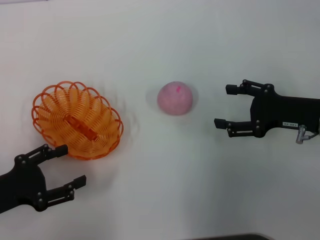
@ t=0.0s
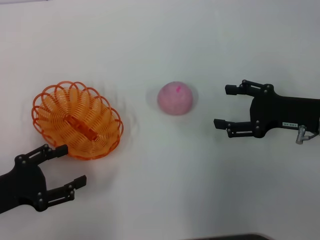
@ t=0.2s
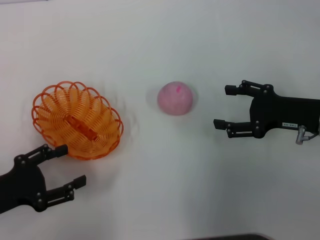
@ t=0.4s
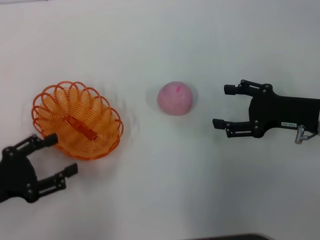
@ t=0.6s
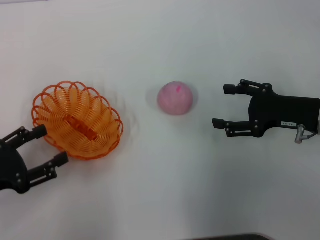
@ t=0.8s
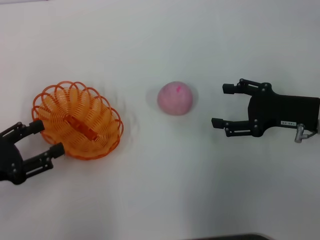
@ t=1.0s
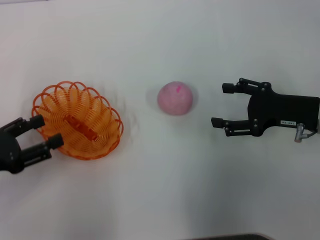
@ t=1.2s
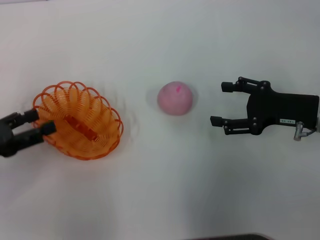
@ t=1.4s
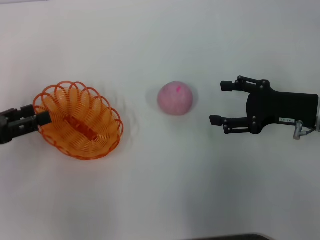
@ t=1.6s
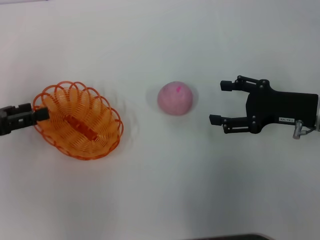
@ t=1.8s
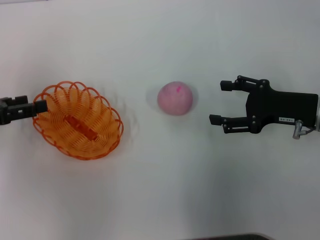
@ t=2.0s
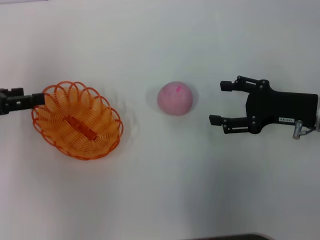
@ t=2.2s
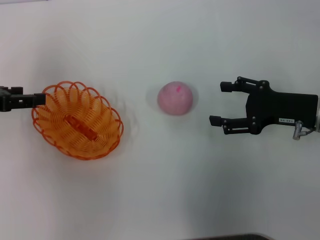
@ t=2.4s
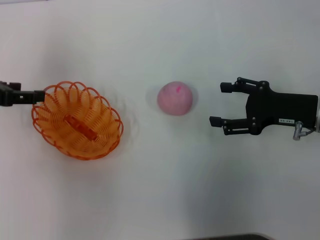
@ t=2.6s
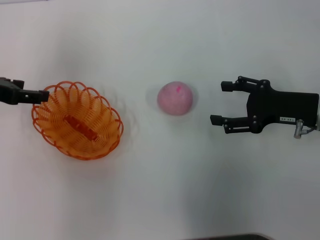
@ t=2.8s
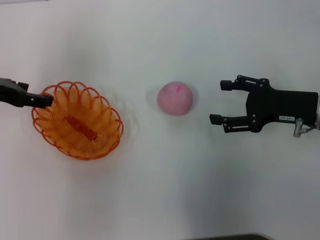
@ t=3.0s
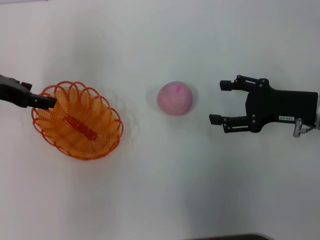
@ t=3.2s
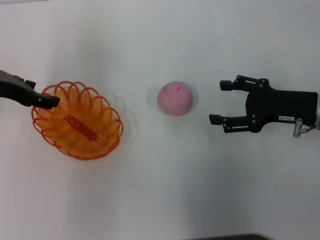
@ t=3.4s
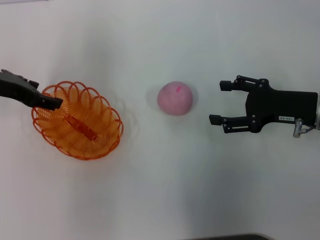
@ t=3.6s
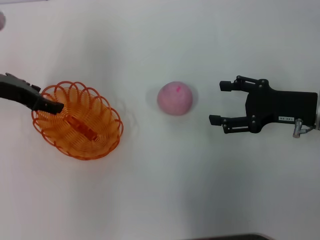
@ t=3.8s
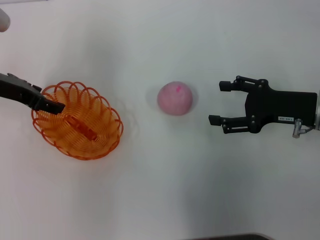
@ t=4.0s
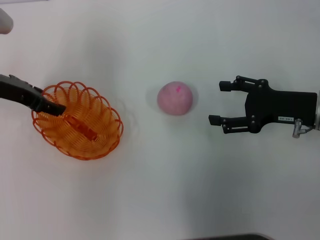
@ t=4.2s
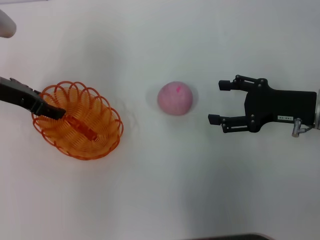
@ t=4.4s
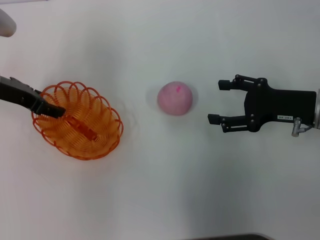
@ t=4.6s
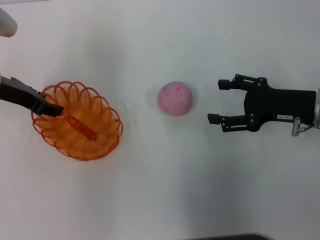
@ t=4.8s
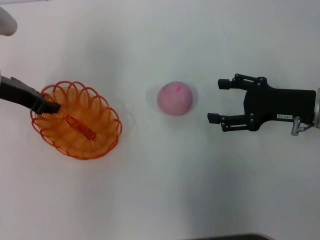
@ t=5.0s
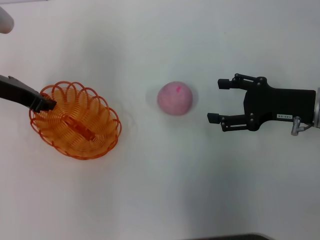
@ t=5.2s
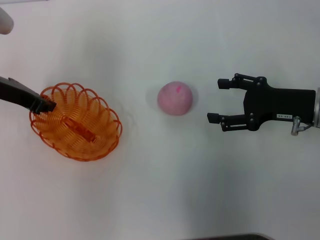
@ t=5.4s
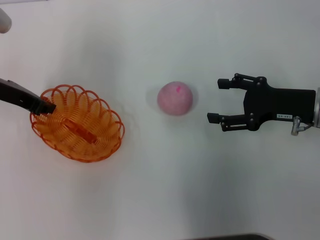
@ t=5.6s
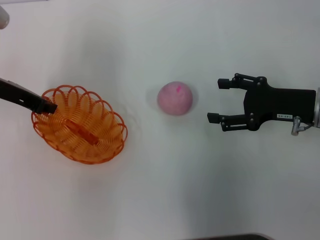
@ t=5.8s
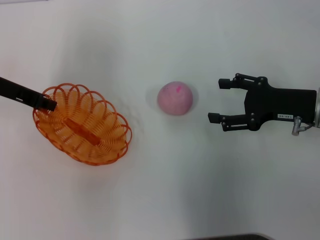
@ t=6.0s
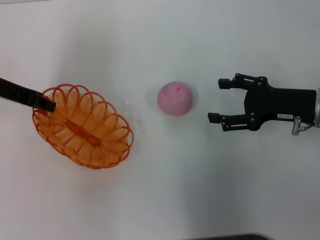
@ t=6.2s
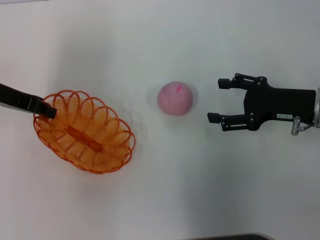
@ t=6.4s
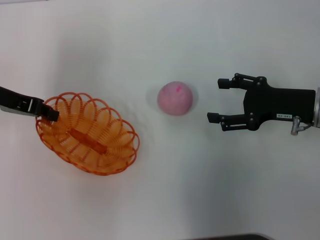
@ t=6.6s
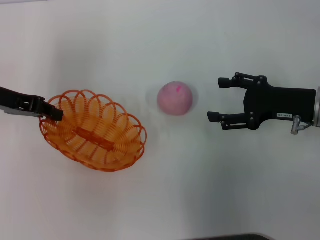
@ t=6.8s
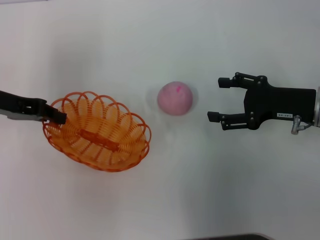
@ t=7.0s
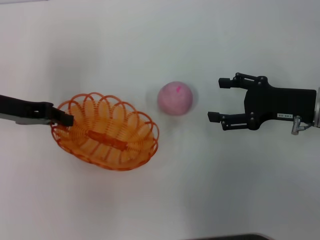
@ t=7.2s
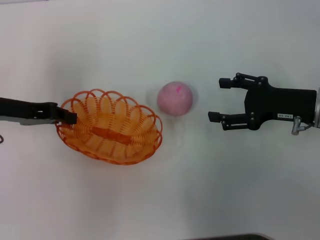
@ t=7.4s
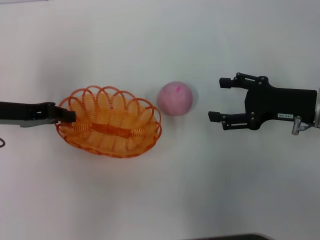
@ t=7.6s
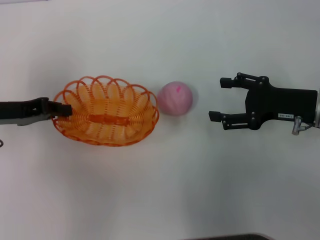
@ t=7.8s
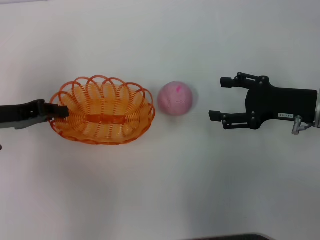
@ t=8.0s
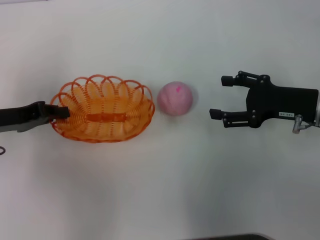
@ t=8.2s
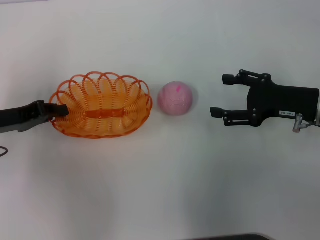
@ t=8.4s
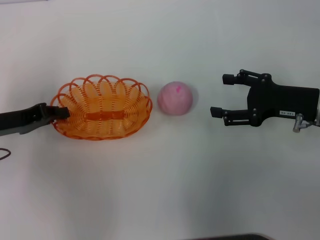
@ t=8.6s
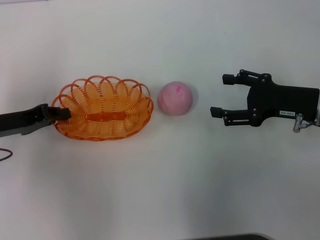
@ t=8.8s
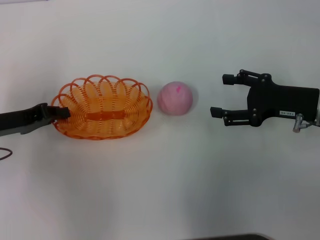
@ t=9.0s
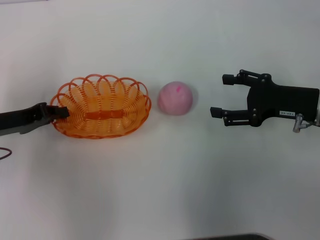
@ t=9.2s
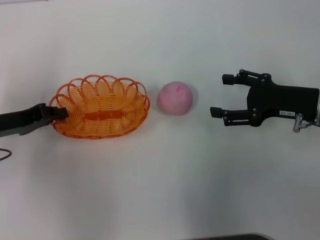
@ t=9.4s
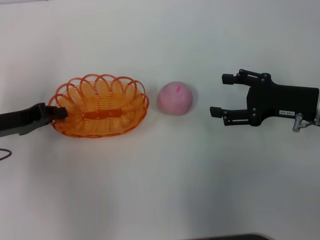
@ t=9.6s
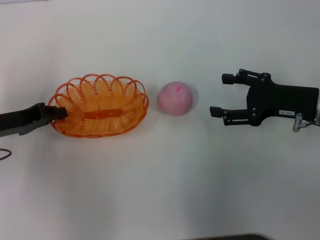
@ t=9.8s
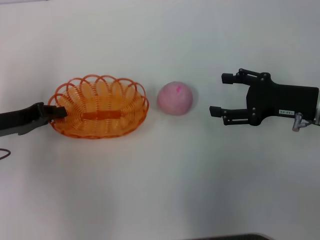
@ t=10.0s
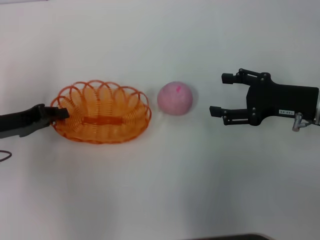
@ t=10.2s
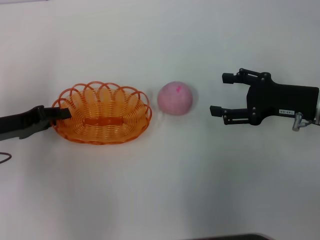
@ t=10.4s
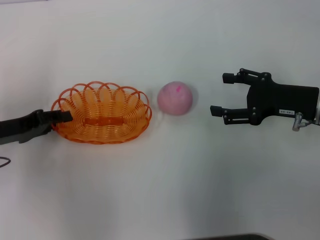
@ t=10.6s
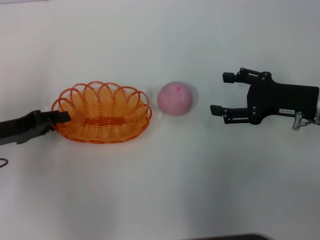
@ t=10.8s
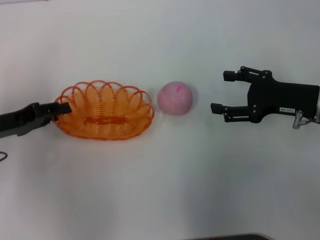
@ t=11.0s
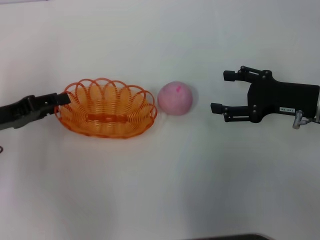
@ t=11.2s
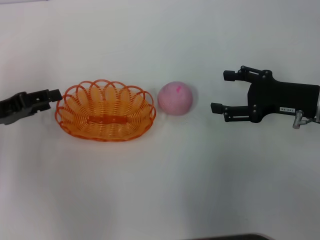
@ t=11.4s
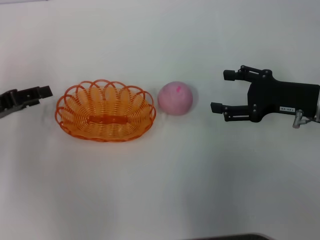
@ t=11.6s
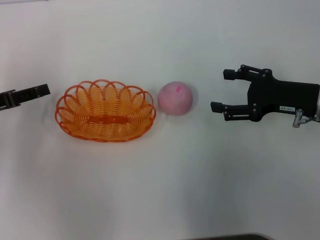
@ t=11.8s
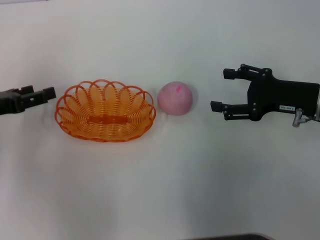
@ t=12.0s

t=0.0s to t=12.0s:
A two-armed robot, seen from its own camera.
Step, t=0.0s to t=6.6s: Pick up the basket with the left gripper.
Step, t=7.0s to t=11.8s: Place the basket in the center of view with the left gripper.
t=0.0s to t=1.6s: The left gripper travels forward by approximately 5 cm.
t=1.6s to t=3.0s: The left gripper goes about 10 cm forward and upward.
t=3.0s to t=4.4s: The left gripper moves roughly 5 cm.
t=4.4s to t=6.0s: The left gripper closes up.
t=6.0s to t=7.6s: The left gripper shifts about 5 cm backward.
t=7.6s to t=9.0s: The grippers move only a little.
t=9.0s to t=10.4s: Both grippers stay about where they are.
t=10.4s to t=12.0s: The left gripper opens its fingers.

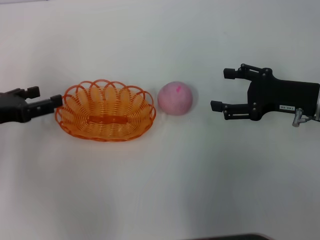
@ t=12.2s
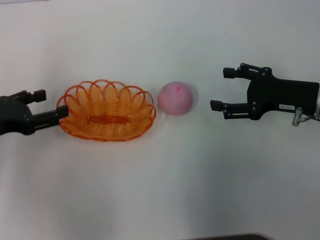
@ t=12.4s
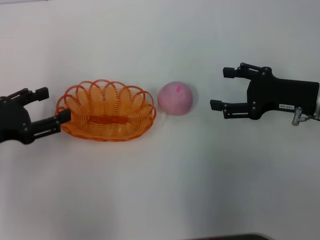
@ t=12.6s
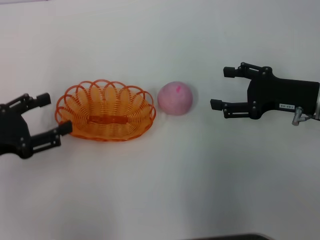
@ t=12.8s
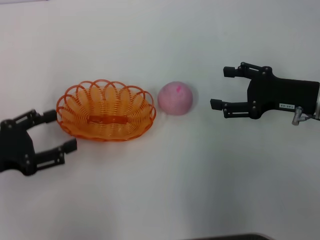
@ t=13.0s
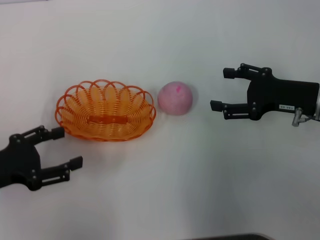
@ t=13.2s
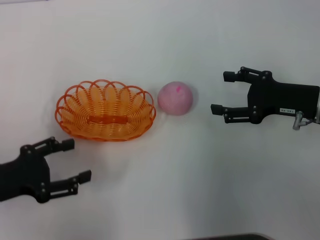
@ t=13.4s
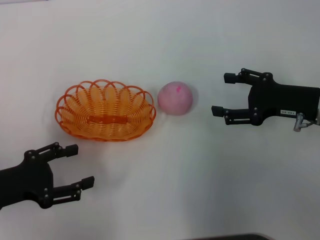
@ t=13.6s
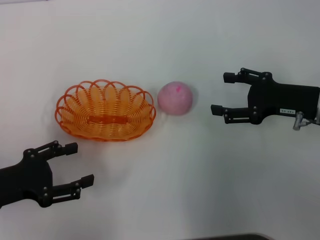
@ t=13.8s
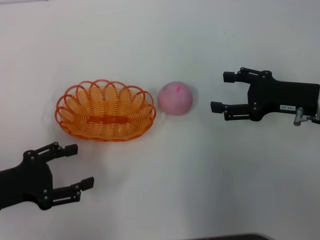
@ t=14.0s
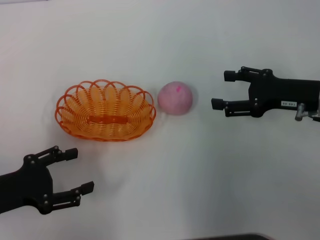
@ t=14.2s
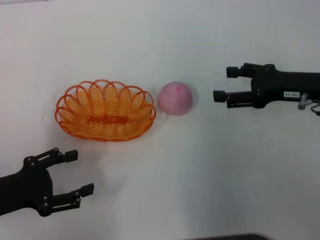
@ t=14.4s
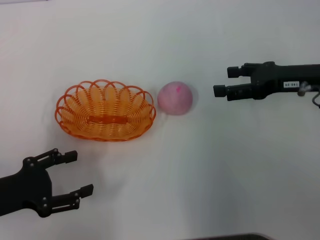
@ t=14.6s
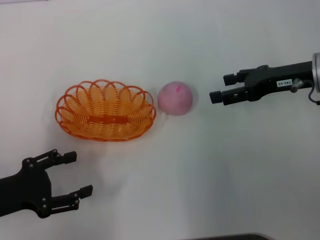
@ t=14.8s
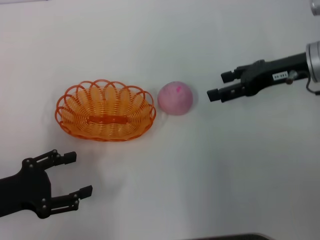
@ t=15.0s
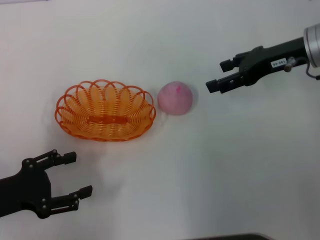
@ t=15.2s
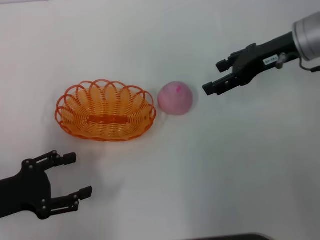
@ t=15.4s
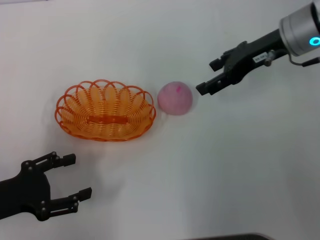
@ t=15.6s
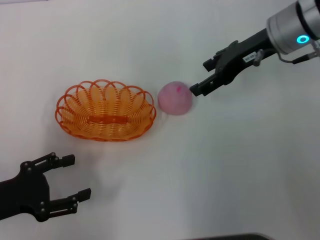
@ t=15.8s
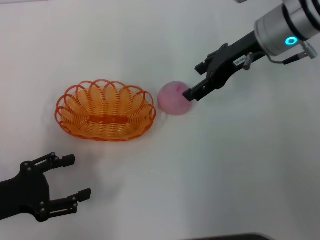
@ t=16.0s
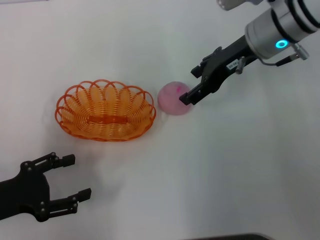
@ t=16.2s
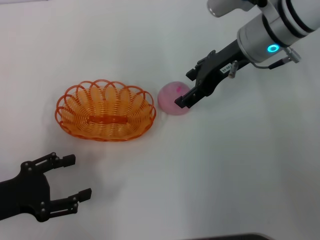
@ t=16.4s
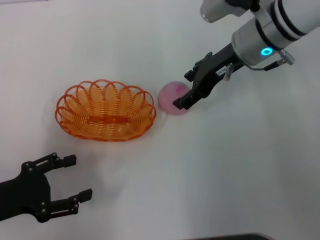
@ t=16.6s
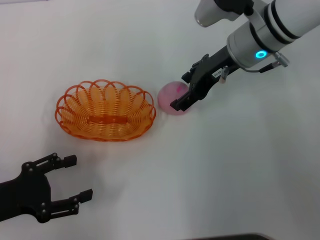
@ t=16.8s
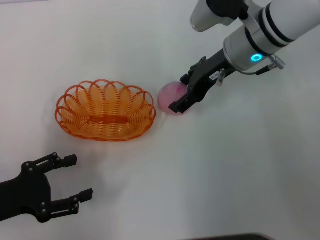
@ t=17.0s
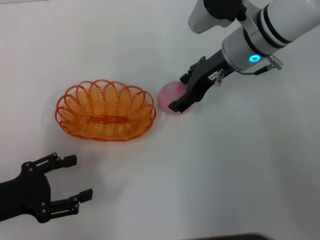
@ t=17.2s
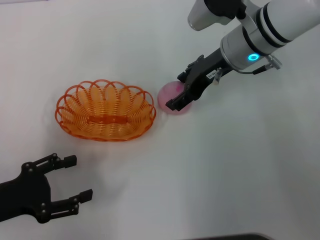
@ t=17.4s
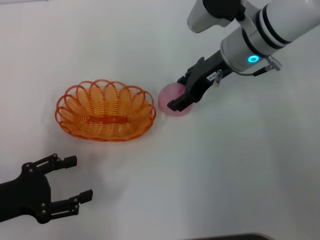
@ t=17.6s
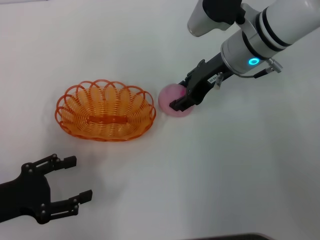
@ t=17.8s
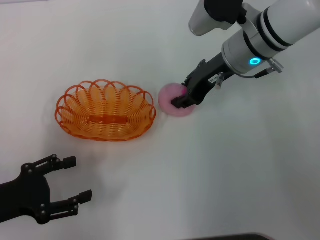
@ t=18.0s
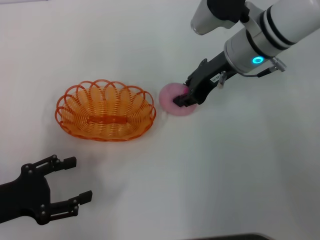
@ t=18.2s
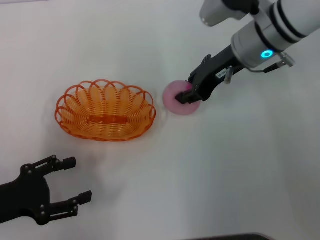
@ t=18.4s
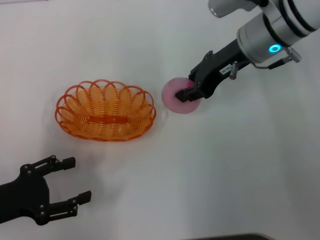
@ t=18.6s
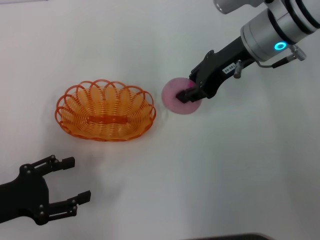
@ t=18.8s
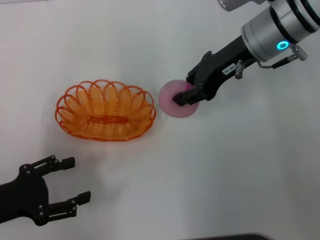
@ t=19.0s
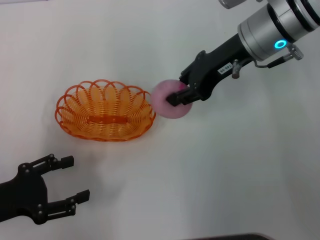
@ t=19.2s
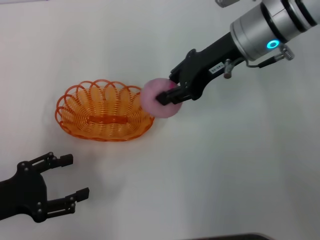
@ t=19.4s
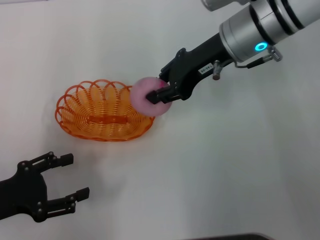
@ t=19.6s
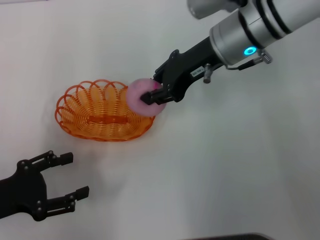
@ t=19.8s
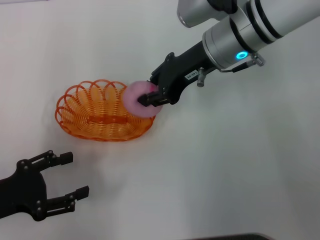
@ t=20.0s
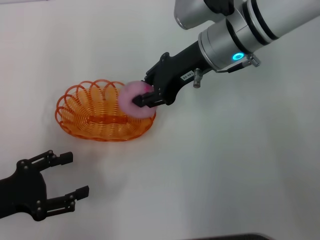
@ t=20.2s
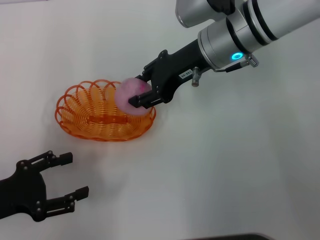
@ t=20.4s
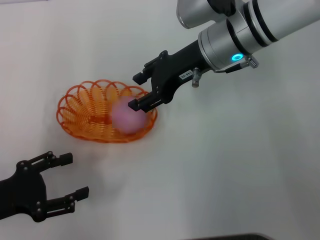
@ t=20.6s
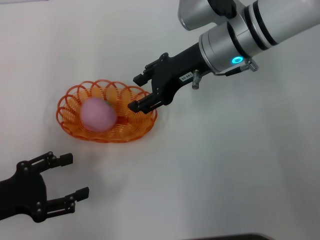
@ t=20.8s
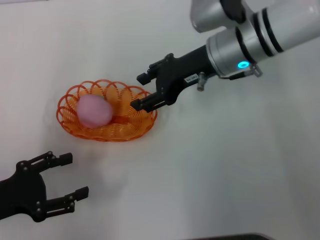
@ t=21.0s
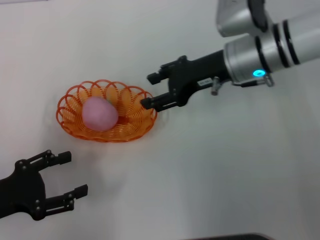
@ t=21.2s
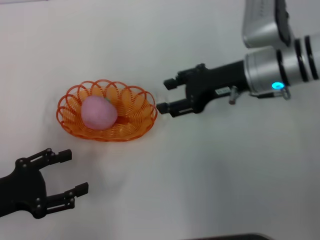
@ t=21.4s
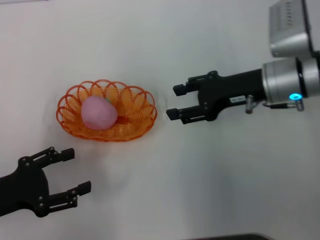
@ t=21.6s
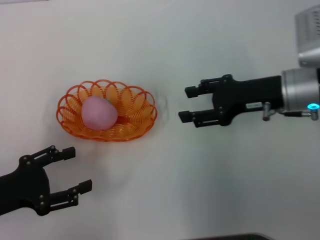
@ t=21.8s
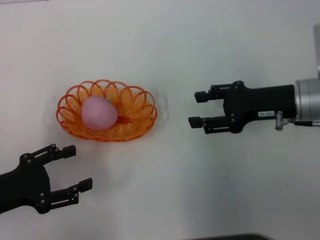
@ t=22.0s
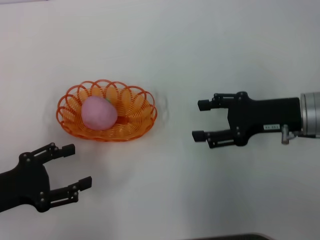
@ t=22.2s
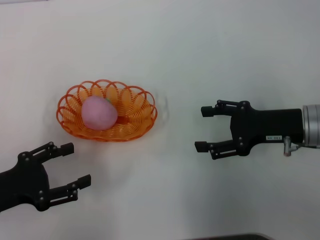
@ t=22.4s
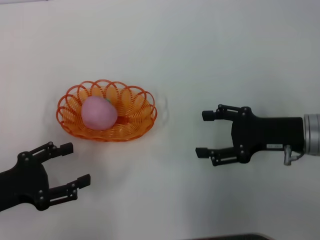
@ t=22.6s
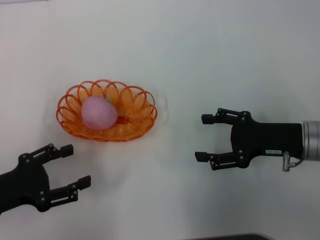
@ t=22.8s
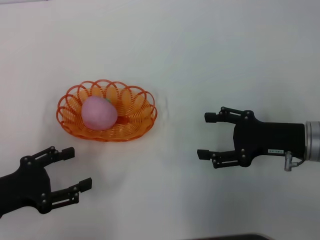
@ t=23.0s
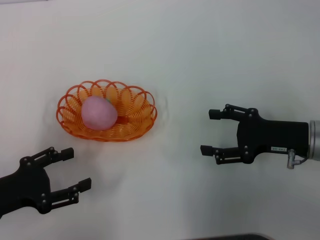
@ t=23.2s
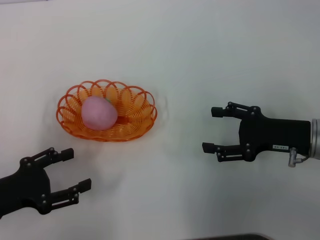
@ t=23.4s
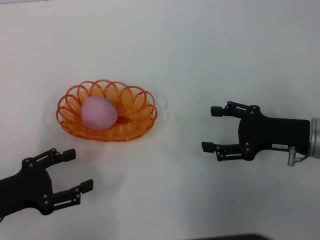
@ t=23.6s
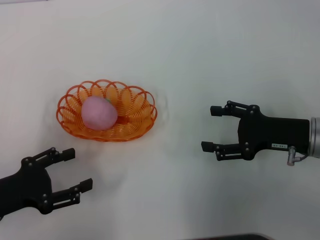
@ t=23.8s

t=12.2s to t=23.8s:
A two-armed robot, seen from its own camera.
Step, t=12.2s to t=18.8s: Pick up the peach with the right gripper.
Step, t=19.2s to t=21.0s: Place the peach into the basket with the right gripper.
t=12.2s to t=13.6s: The left gripper heads backward, covering some 10 cm.
t=13.6s to t=15.0s: The right gripper is displaced forward and upward by roughly 10 cm.
t=15.0s to t=16.6s: The right gripper heads to the left, covering approximately 10 cm.
t=16.6s to t=18.0s: There are only small adjustments of the grippers.
t=18.0s to t=19.4s: The right gripper closes up.
t=19.4s to t=21.0s: The right gripper opens.
t=21.0s to t=22.4s: The right gripper shifts roughly 15 cm to the right, backward and downward.
t=22.4s to t=23.8s: The grippers make only small movements.
